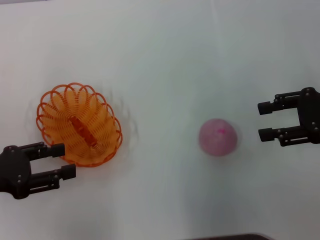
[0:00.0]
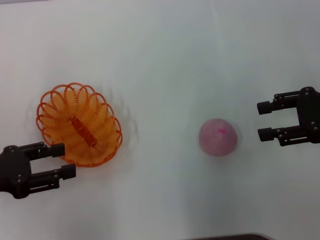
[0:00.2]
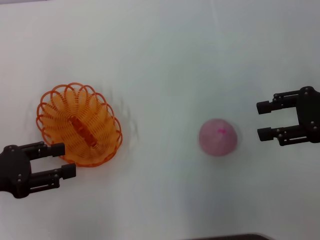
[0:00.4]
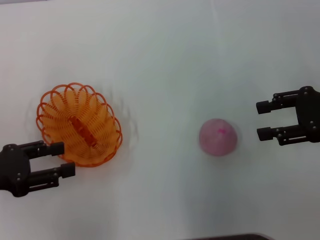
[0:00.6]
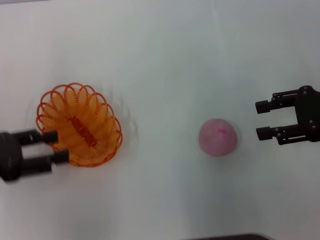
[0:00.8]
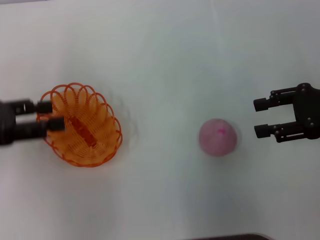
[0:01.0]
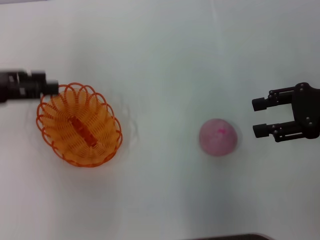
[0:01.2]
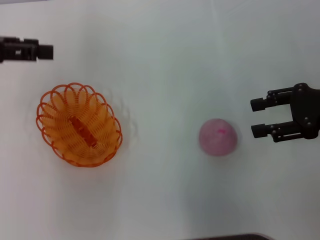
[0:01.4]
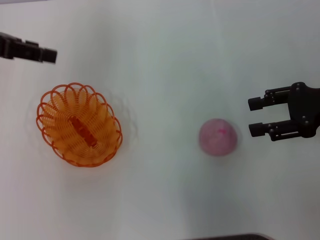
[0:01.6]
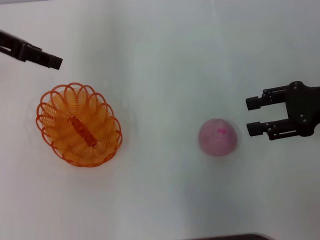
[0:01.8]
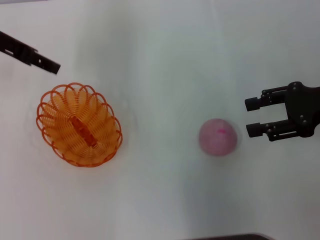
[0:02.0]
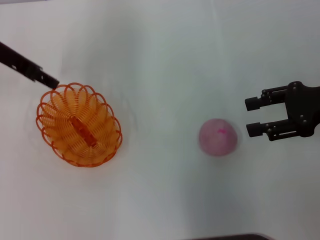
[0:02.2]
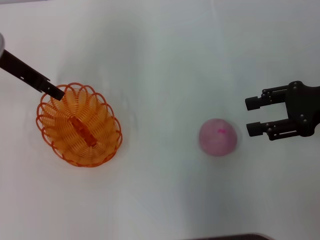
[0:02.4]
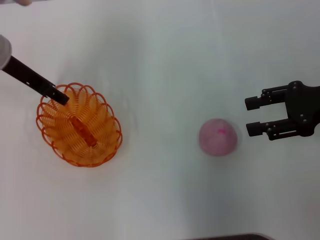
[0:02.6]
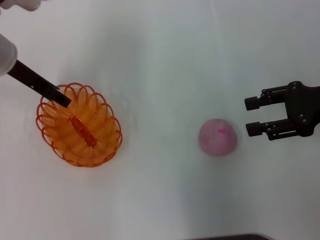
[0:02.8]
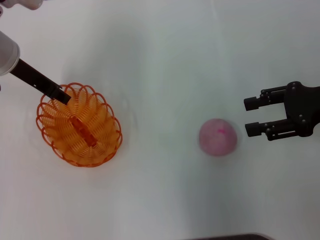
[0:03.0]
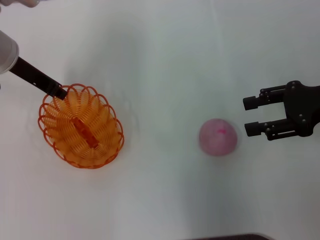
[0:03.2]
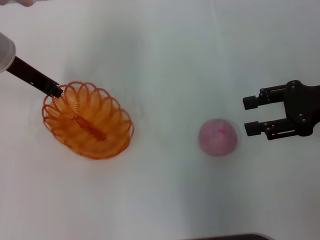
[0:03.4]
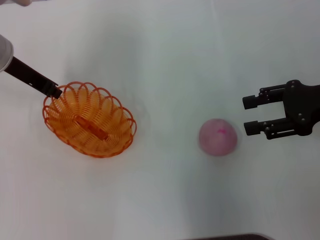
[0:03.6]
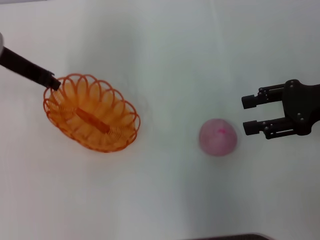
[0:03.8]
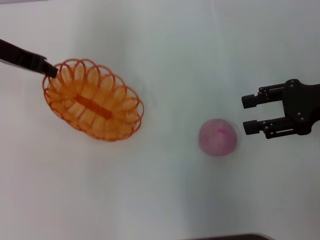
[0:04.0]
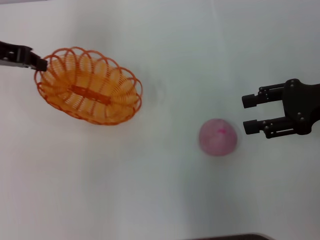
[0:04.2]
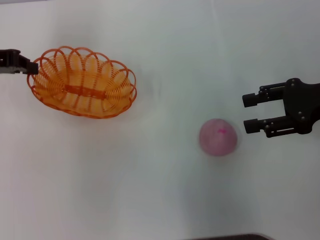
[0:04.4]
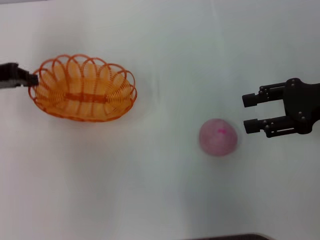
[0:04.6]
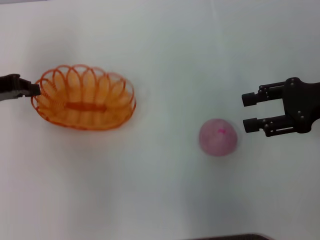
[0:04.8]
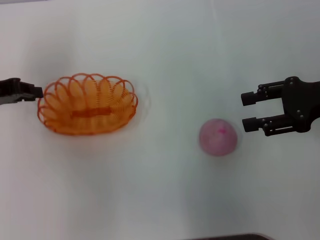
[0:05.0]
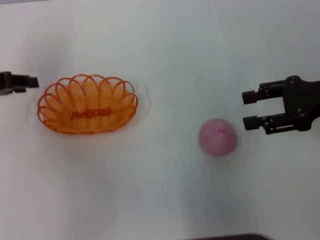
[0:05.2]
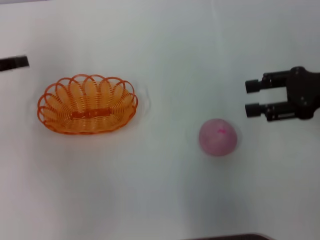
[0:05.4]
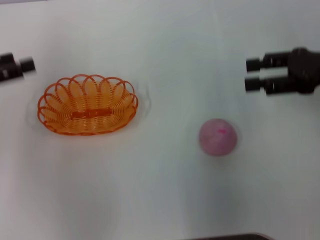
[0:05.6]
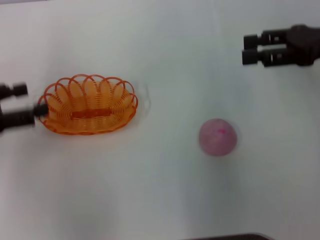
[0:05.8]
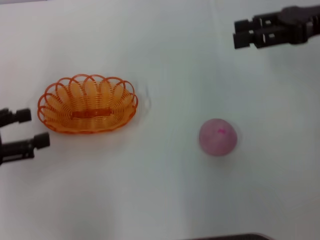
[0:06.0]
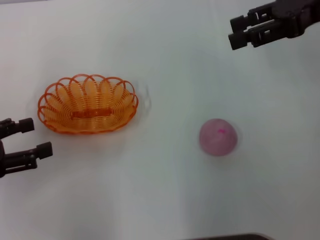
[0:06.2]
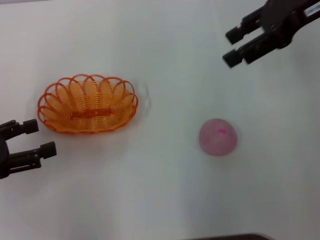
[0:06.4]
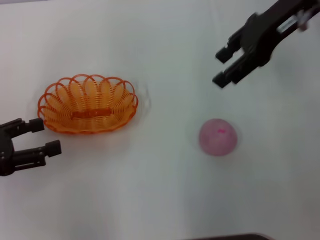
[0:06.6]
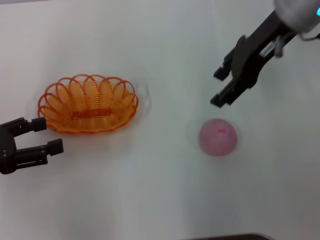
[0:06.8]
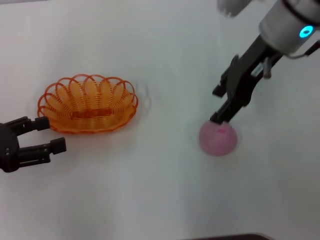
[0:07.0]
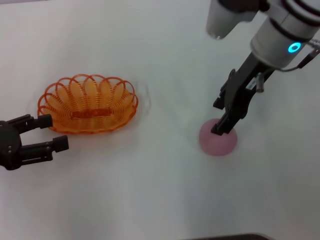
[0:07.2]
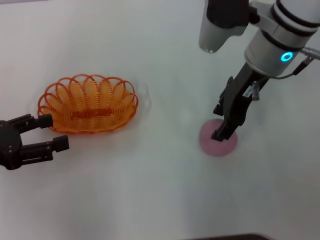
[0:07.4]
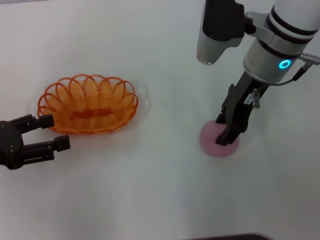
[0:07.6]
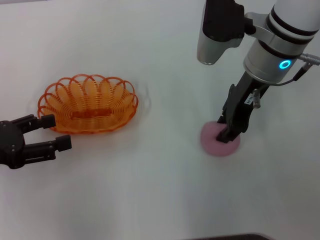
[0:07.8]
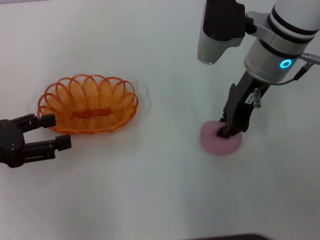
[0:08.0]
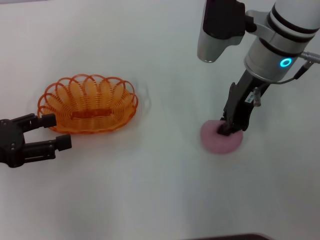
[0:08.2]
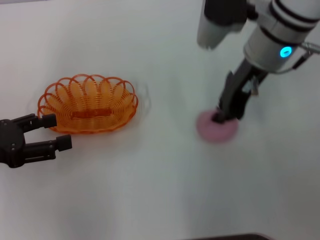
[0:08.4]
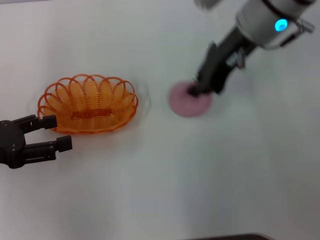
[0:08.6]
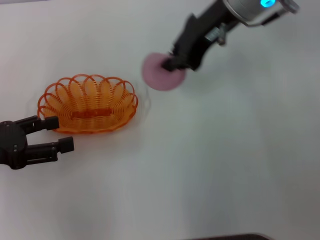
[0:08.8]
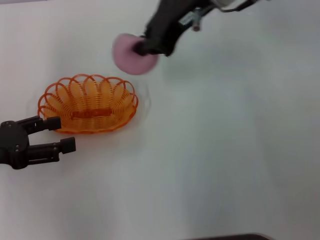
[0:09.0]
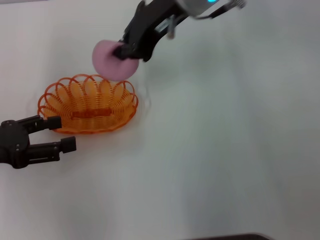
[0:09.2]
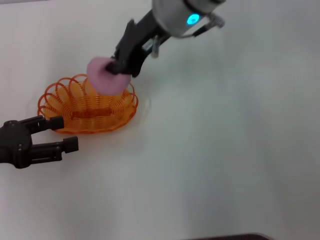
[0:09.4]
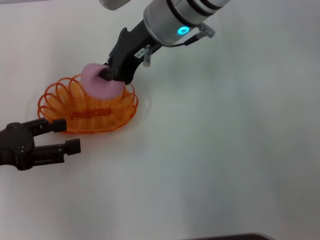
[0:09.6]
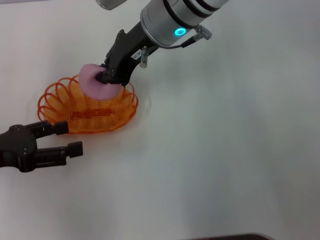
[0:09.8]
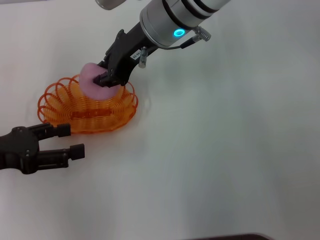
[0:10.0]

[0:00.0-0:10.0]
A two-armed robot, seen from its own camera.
Step, 0:00.0 to 0:03.8: Pick up the basket with the left gripper.
Step, 0:04.0 to 0:05.0: Place the basket in the center of view with the left gripper.
Step, 0:05.2 to 0:08.4: Pick up the peach with the right gripper.
0:00.0 to 0:01.4: The left gripper goes roughly 15 cm upward and forward.
0:01.4 to 0:02.8: The left gripper goes roughly 15 cm to the right, downward and forward.
0:02.8 to 0:04.2: The left gripper goes some 5 cm to the left, and closes up.
0:04.2 to 0:05.8: The right gripper moves some 5 cm. Meanwhile the left gripper moves backward and to the left, some 15 cm, and opens.
0:05.8 to 0:07.2: The right gripper shifts about 15 cm to the left.
0:07.2 to 0:08.6: The right gripper closes.
0:08.6 to 0:10.0: The right gripper shifts some 10 cm to the left.

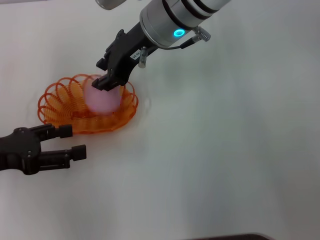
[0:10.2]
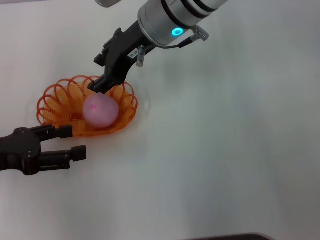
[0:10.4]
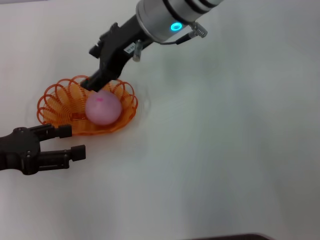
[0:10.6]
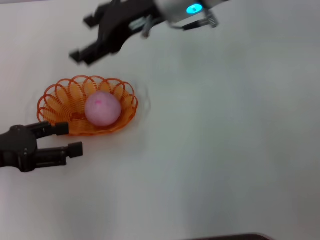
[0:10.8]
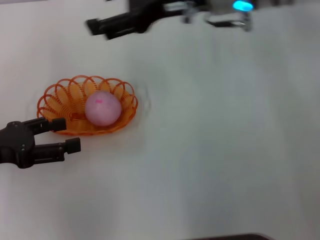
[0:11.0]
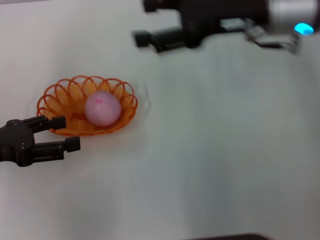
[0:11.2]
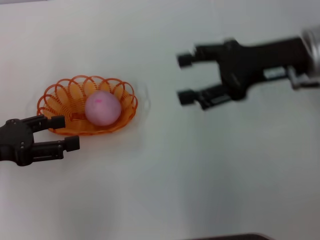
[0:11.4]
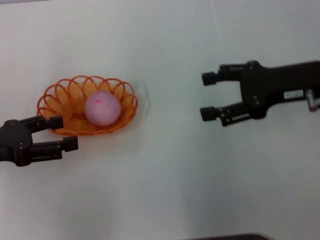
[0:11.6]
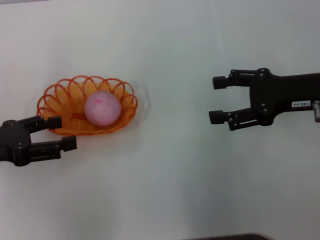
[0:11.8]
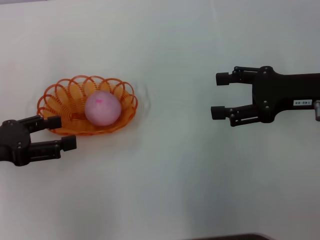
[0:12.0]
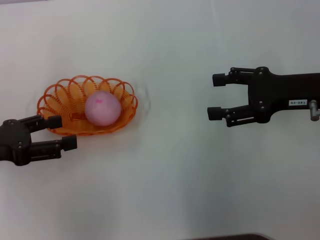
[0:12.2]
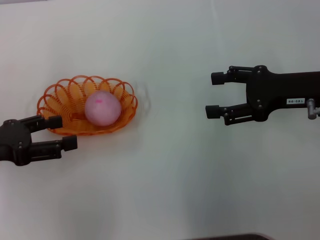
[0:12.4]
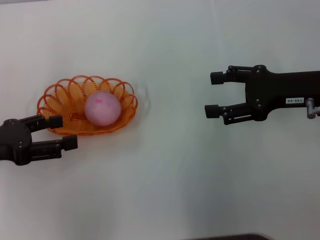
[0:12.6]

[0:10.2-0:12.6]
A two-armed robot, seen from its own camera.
0:10.2 to 0:11.4: The right gripper travels to the right by roughly 20 cm, and opens its fingers.
0:11.4 to 0:12.6: The right gripper ends up approximately 5 cm from where it was.

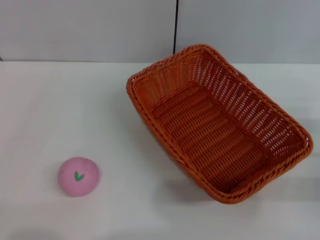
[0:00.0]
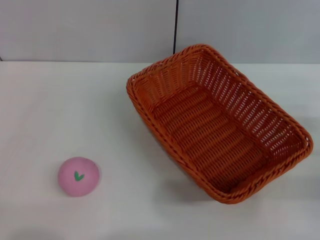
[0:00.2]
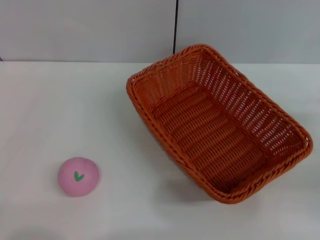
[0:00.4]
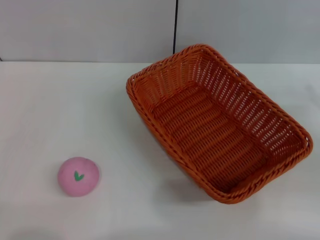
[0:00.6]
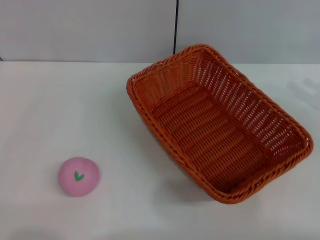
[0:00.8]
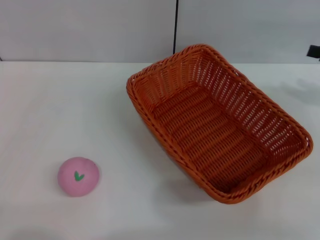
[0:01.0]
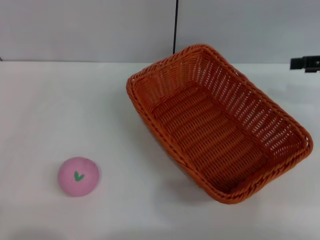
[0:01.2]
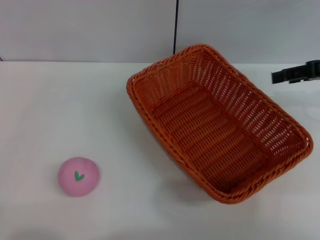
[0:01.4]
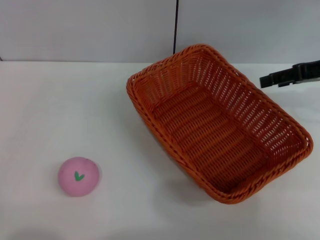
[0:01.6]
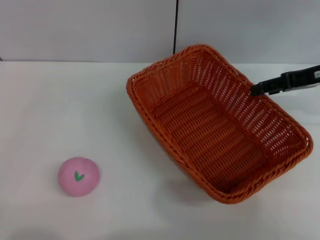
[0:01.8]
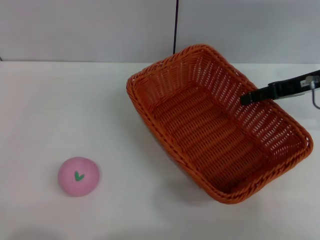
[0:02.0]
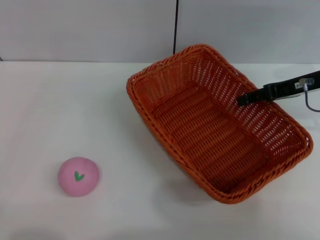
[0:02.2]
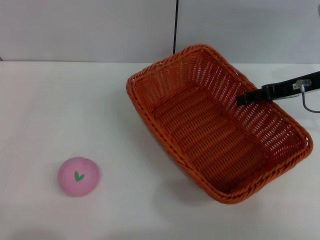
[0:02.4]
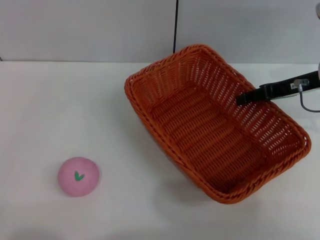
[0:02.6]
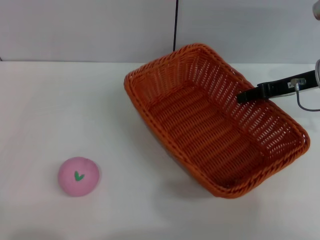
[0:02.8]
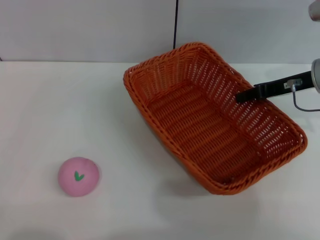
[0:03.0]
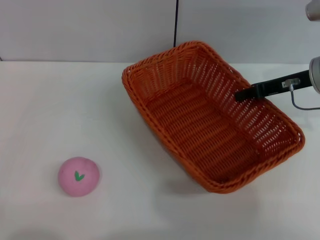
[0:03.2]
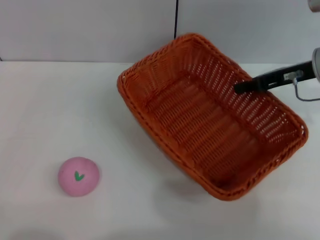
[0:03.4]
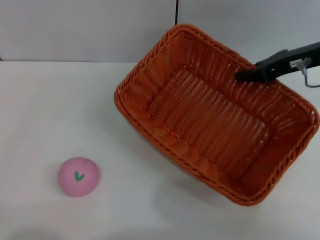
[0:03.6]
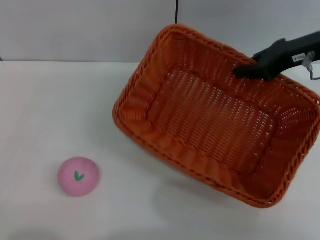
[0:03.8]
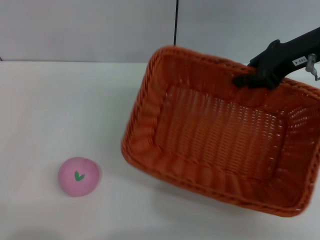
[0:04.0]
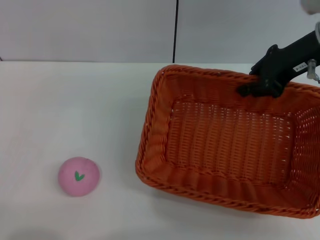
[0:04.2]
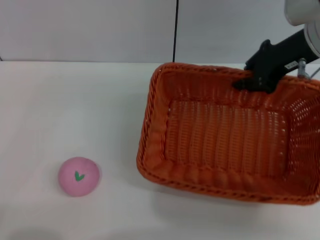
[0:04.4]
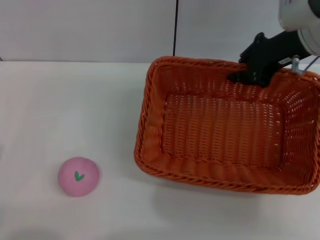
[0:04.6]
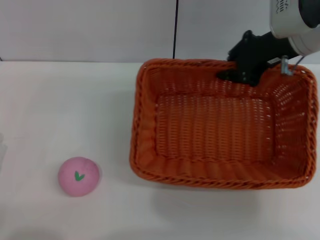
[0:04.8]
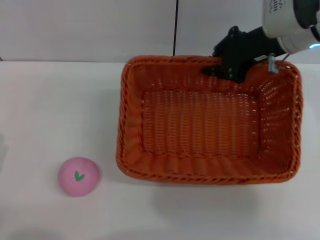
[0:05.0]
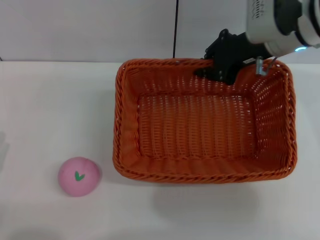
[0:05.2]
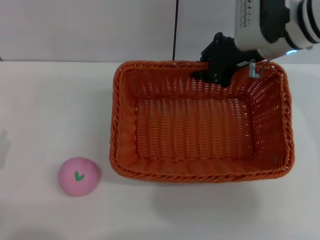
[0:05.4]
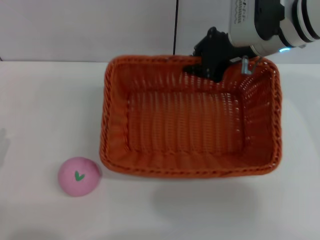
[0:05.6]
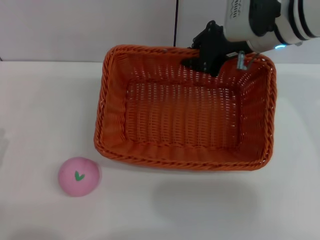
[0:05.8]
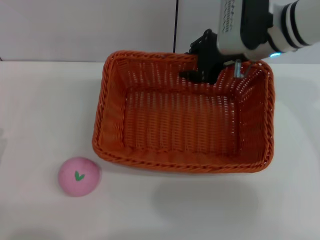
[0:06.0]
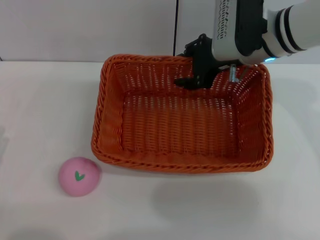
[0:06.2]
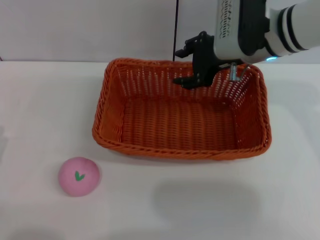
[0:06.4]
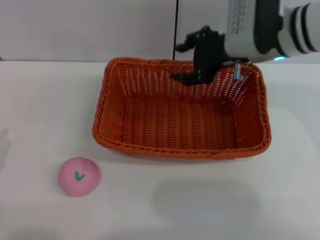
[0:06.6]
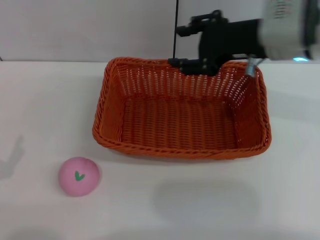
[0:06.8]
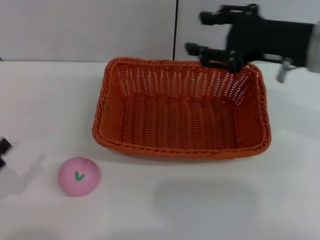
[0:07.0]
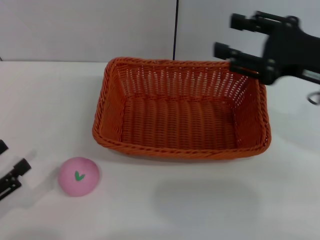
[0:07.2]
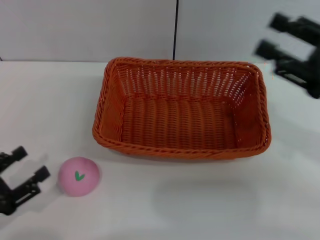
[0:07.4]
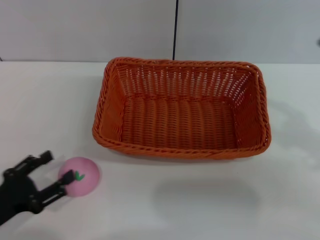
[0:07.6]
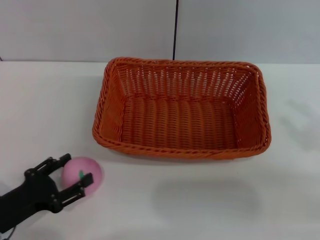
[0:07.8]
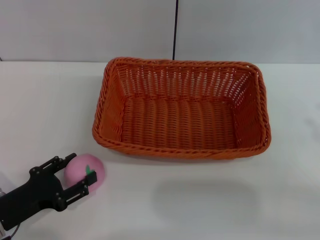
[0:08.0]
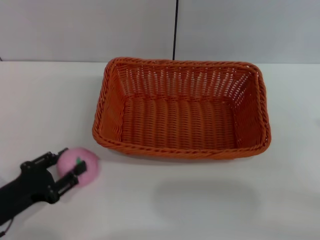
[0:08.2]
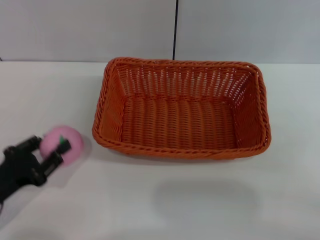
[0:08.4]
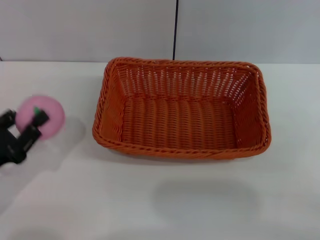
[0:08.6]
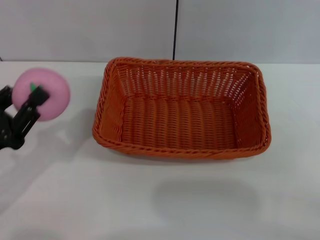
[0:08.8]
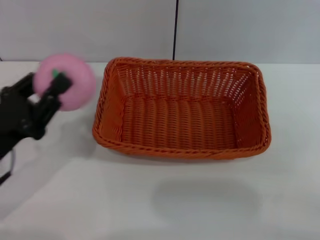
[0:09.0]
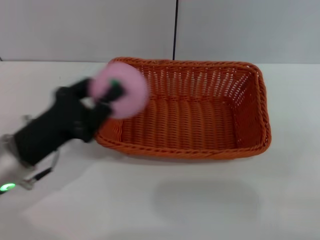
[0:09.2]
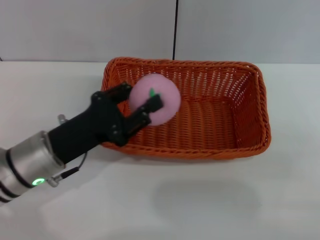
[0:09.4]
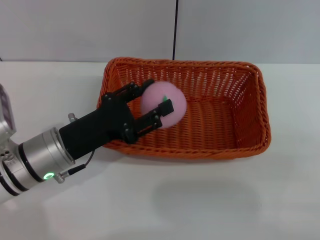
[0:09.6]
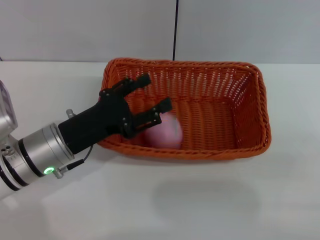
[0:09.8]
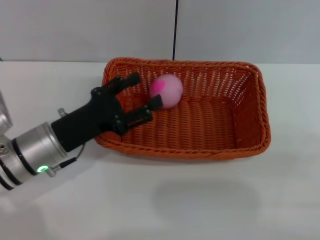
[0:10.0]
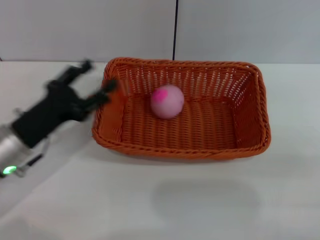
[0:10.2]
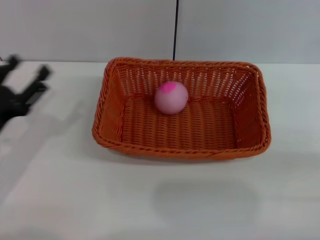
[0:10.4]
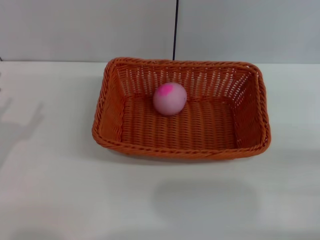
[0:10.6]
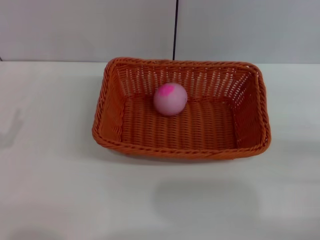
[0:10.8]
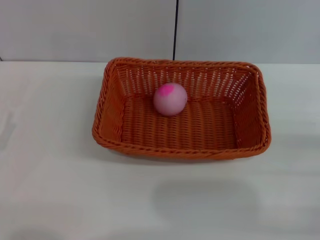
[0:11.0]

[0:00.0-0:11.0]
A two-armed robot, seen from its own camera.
Step, 0:00.0 to 0:03.6: Pick up the dark basket with the right gripper.
Step, 0:03.8 to 0:06.8: Place the light basket in the center of view with the right gripper.
Step, 0:07.0 to 0:08.8: Pick up the peach with the left gripper.
Step, 0:09.0 to 0:10.0: Place the peach into the basket with the left gripper.
0:00.0 to 0:01.6: The right gripper heads forward and upward, covering about 20 cm, and opens up.
0:01.6 to 0:03.2: The right gripper shifts by some 5 cm, and closes its fingers.
0:03.2 to 0:04.8: The right gripper goes about 10 cm upward and to the left.
0:04.8 to 0:06.2: The right gripper heads to the left, covering roughly 5 cm, and opens its fingers.
0:06.2 to 0:07.8: The right gripper travels backward and to the right by some 30 cm, and opens up.
0:07.8 to 0:09.4: The left gripper travels to the right, forward and upward by roughly 15 cm, and closes up. The right gripper moves backward, approximately 5 cm.
0:09.4 to 0:11.0: The right gripper shifts approximately 5 cm downward. Meanwhile the left gripper goes about 15 cm to the left and backward, and opens its fingers.
